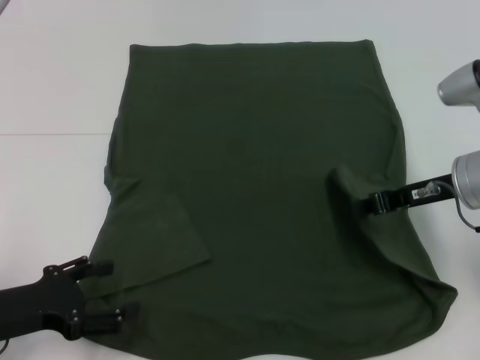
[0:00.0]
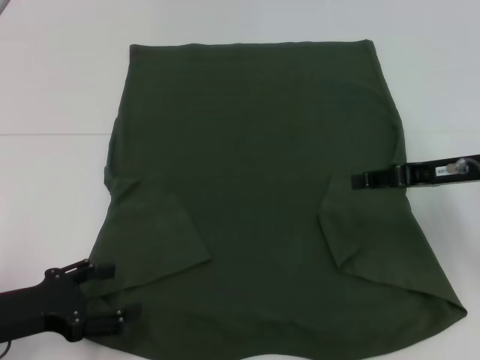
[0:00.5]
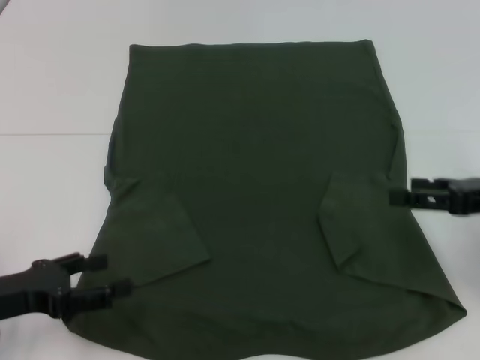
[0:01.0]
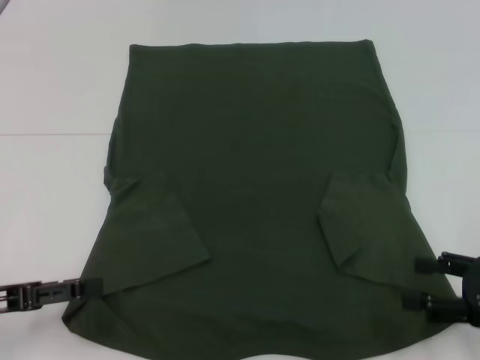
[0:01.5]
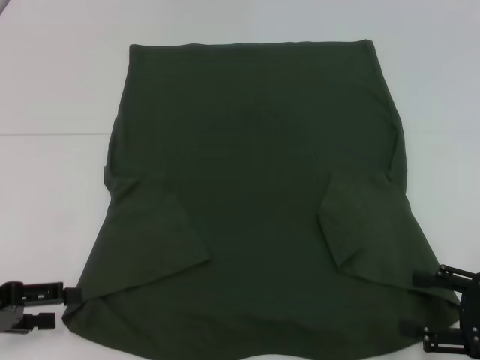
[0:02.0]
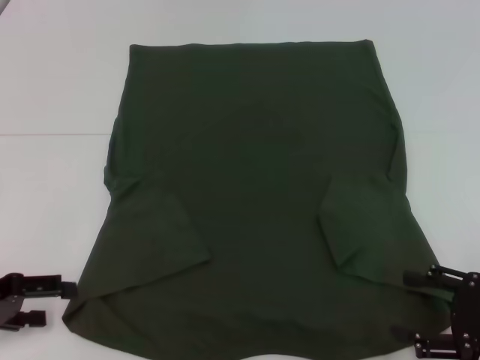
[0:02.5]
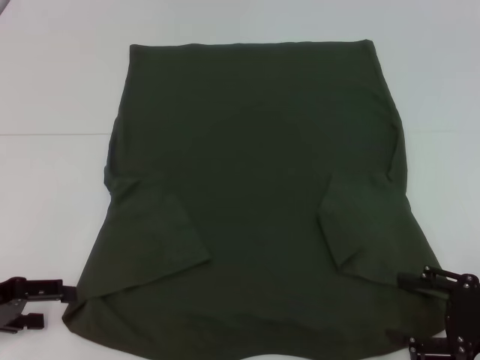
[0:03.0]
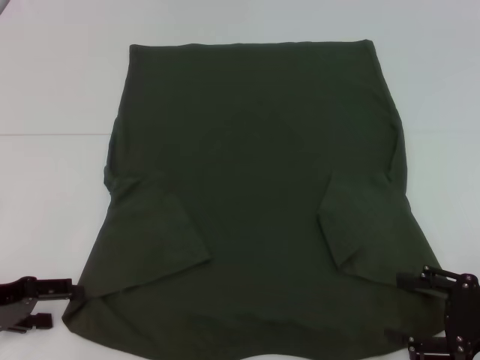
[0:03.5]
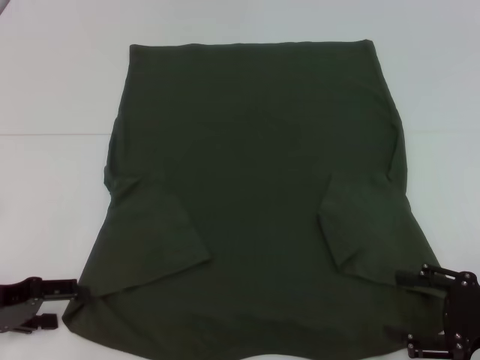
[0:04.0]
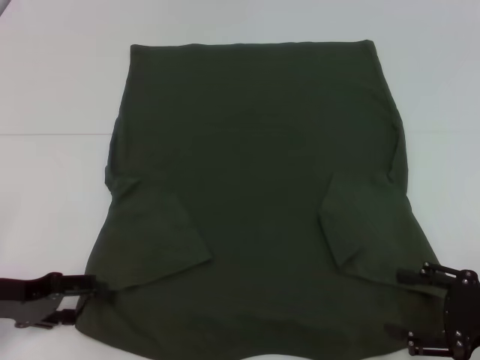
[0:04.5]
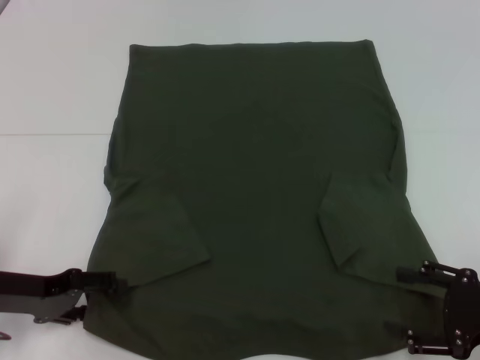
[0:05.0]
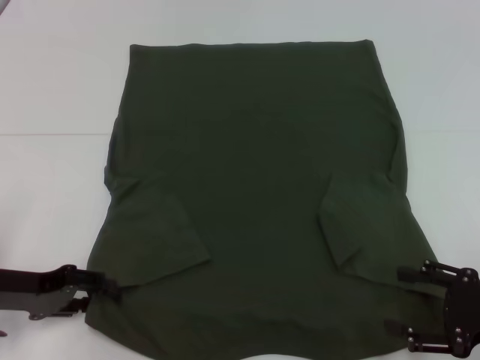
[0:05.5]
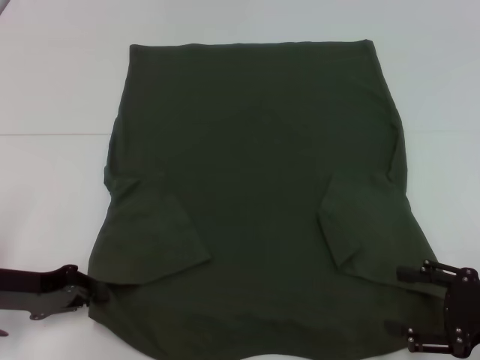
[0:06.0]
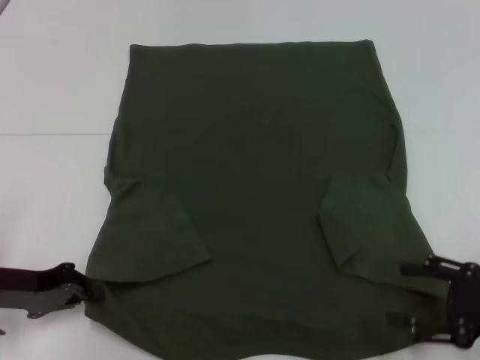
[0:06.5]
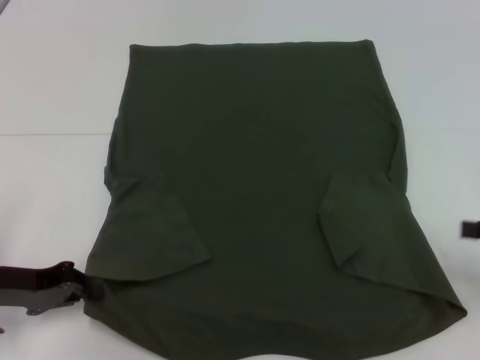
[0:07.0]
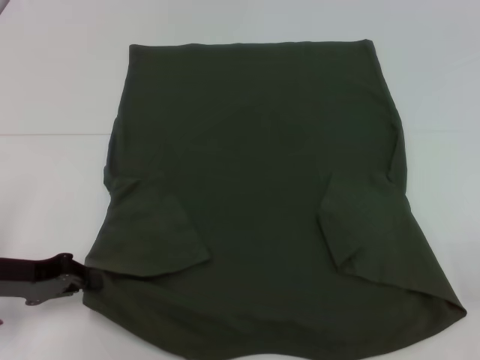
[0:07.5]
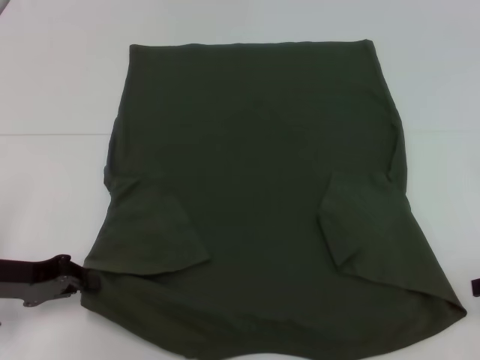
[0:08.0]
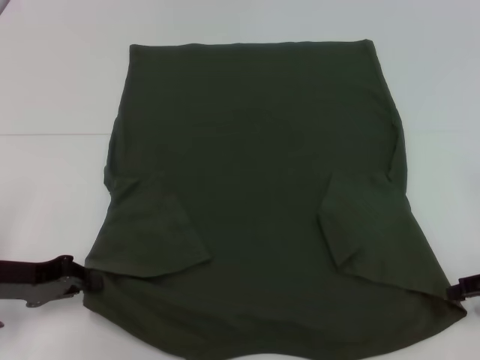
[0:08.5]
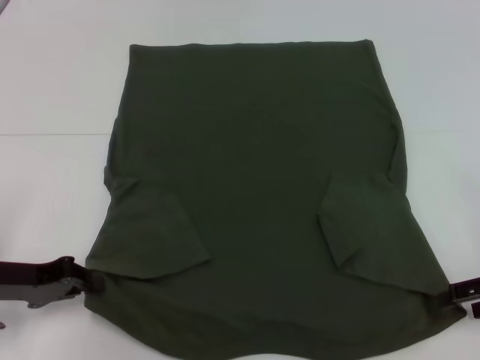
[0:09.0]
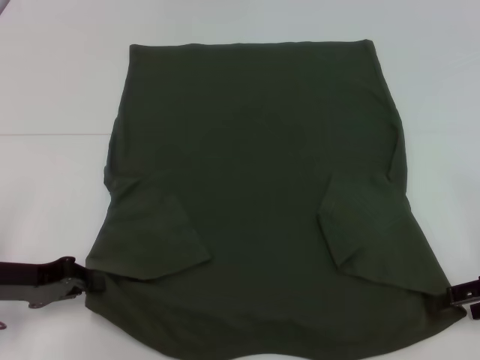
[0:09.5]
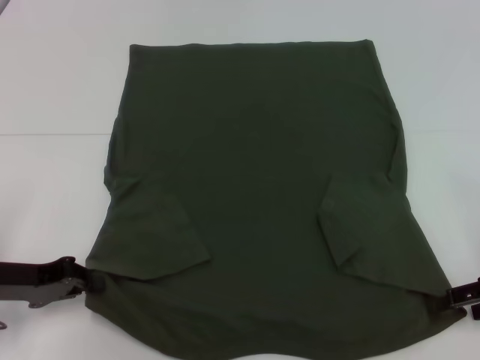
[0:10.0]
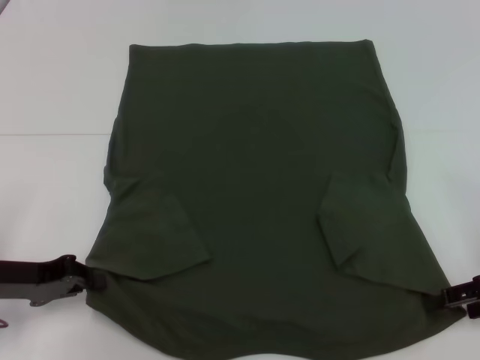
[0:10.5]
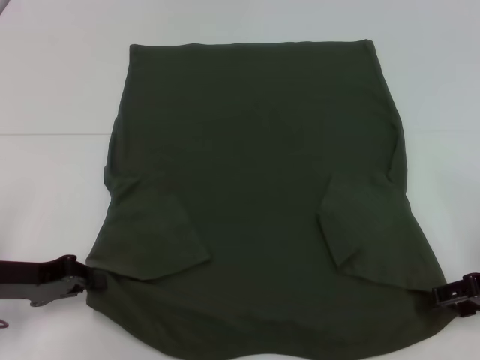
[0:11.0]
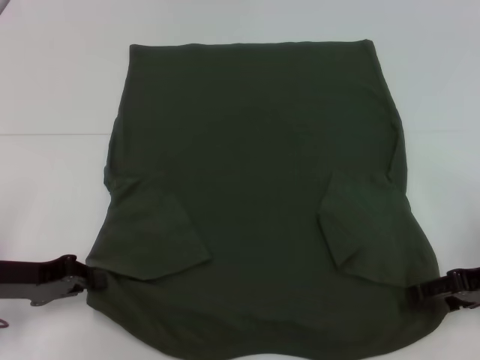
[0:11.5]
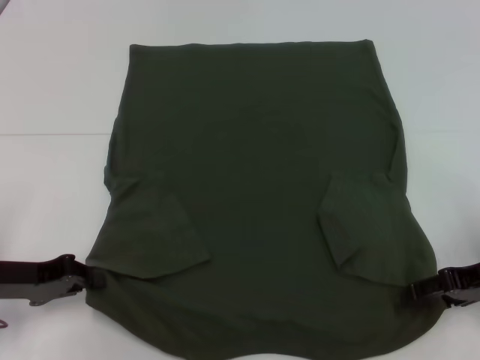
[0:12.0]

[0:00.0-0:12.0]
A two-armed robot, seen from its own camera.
Step, 0:00.5 to 0:05.5: Grab the top right corner with your right hand.
0:00.0 to 0:02.0: The right gripper goes some 20 cm backward, to the right and downward, and opens. Meanwhile the left gripper moves to the left, about 5 cm.
0:02.0 to 0:04.0: The grippers make only small movements.
0:04.0 to 0:06.0: The left gripper closes.
0:06.0 to 0:08.0: The right gripper shifts some 10 cm to the right, forward and upward.
0:08.0 to 0:10.0: There are only small adjustments of the grippers.
0:10.0 to 0:12.0: The grippers stay close to where they were, moving slightly.

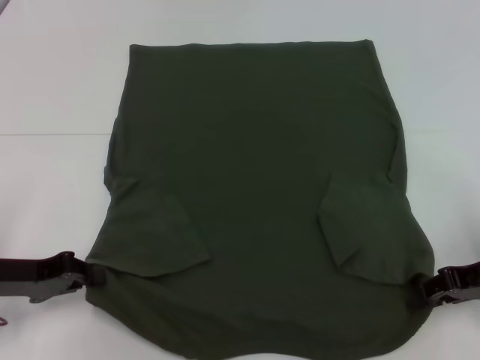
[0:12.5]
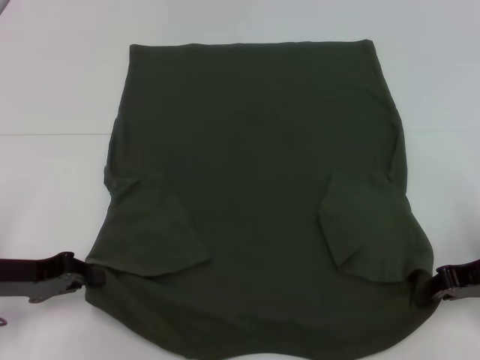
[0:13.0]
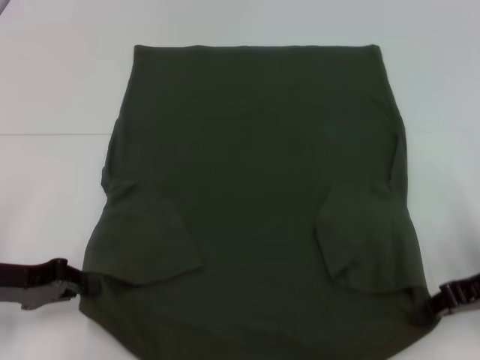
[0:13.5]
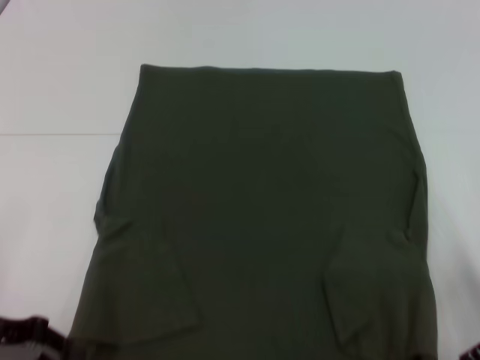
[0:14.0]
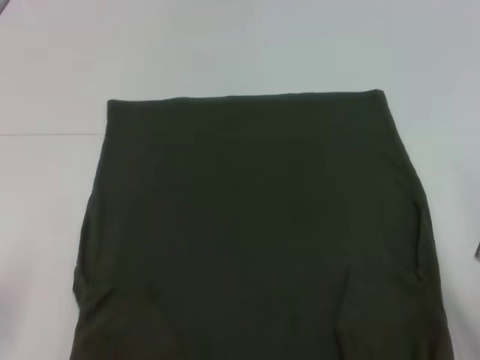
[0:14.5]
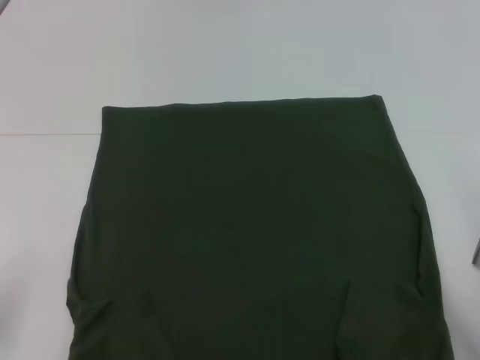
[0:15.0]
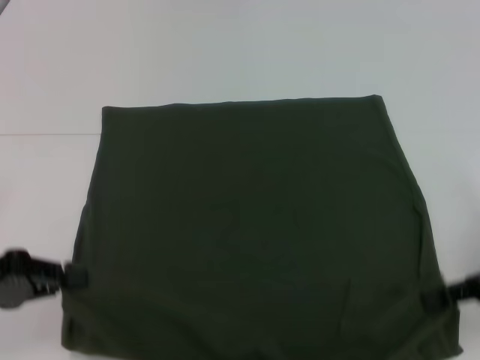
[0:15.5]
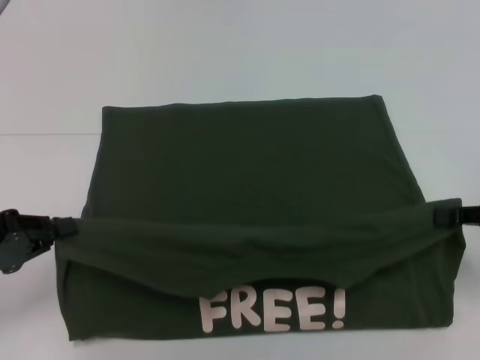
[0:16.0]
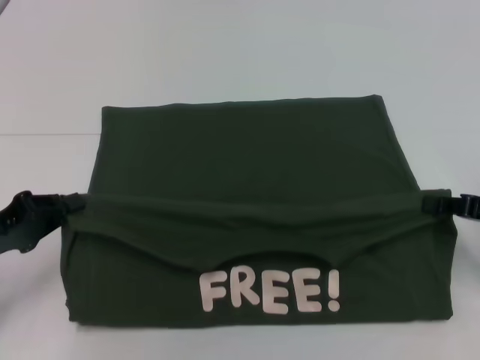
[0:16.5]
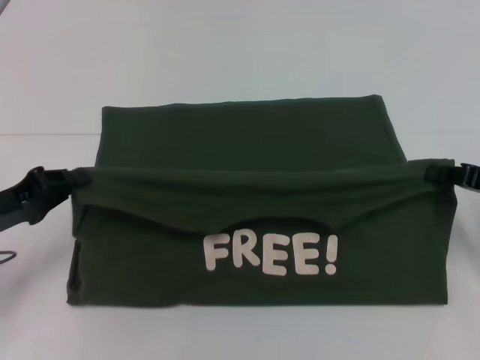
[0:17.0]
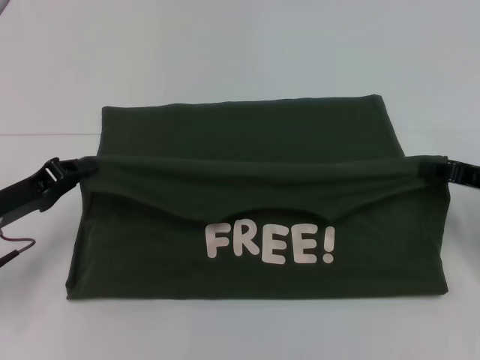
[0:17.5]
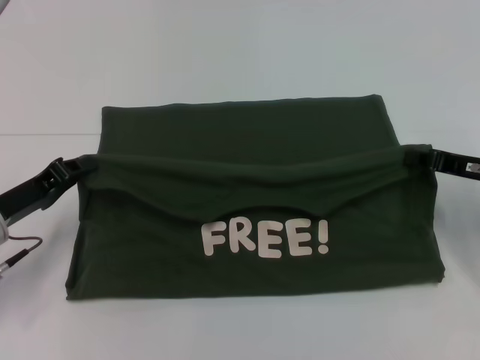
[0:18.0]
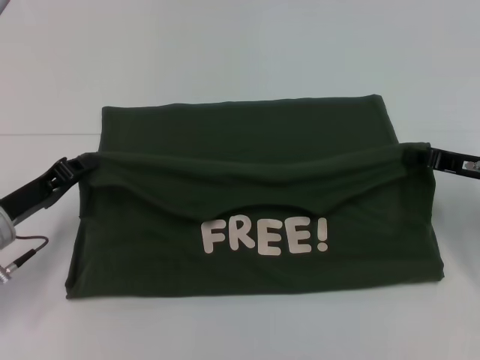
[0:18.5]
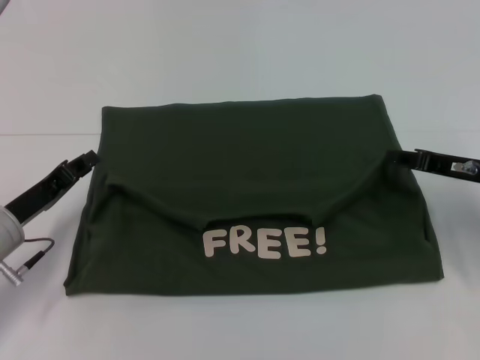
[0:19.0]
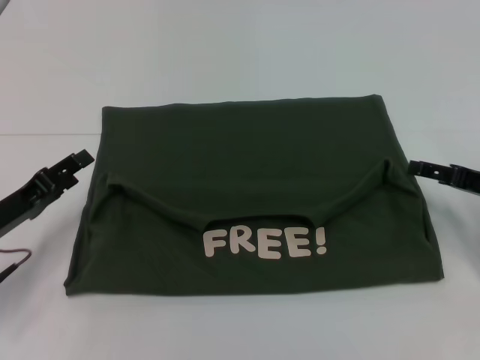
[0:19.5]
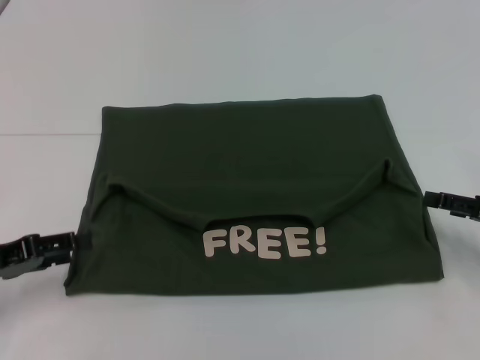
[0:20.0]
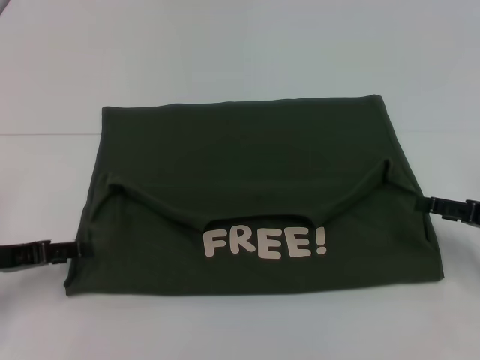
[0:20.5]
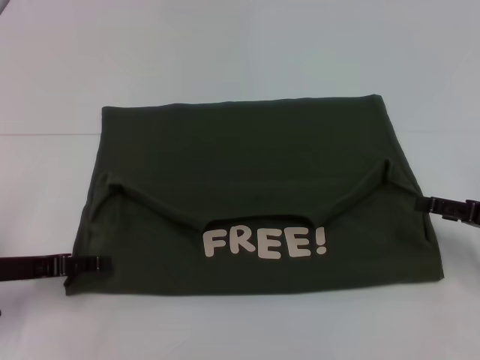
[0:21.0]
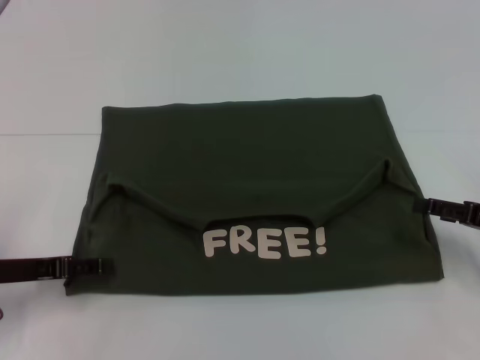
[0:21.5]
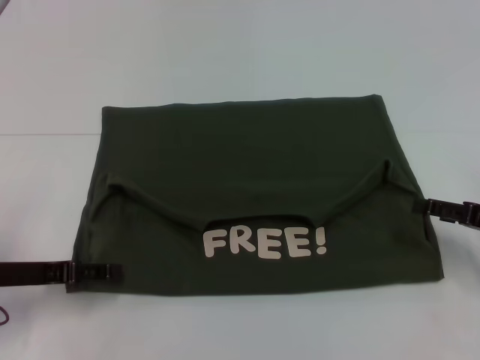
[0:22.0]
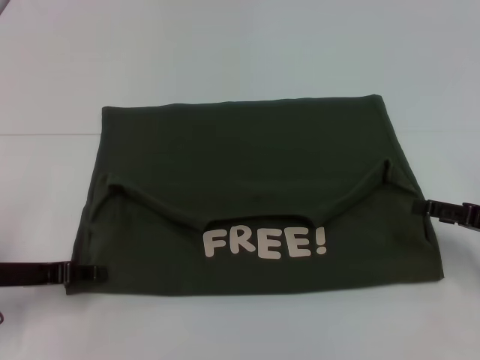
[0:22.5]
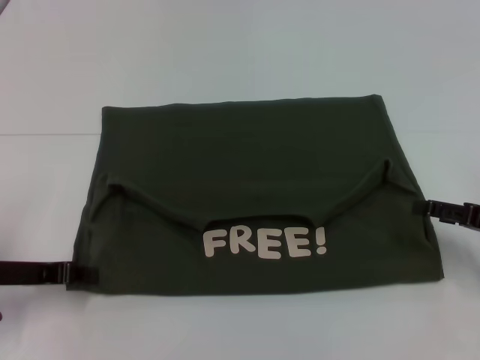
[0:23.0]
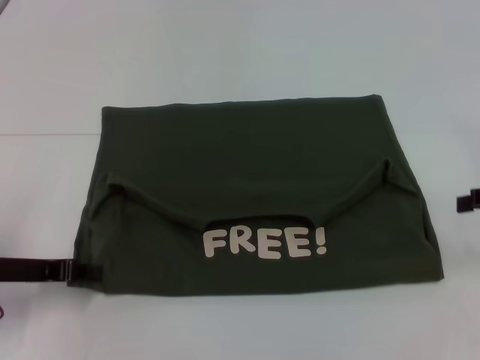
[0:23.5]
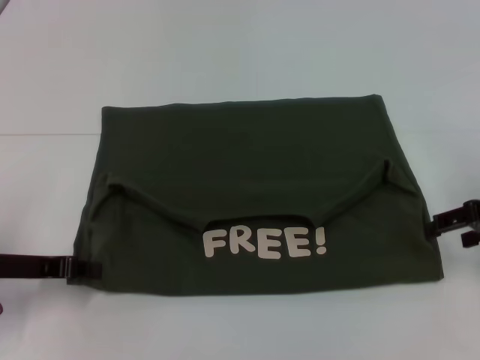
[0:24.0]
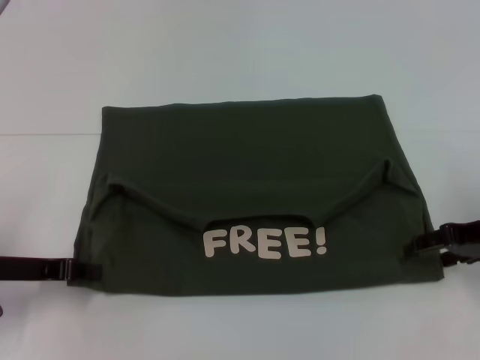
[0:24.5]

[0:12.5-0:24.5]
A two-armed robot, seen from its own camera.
Step, 0:13.0 to 0:19.0: Fold the clothes with your left hand.
Step, 0:13.0 to 0:19.0: Fold the clothes with your right hand.
0:12.5 to 0:14.5: Both grippers travel together backward, roughly 5 cm. The right gripper closes.
0:14.5 to 0:16.5: The left gripper changes place by approximately 5 cm. Meanwhile the right gripper shifts roughly 10 cm to the right and forward.
0:16.5 to 0:18.5: The left gripper ends up some 5 cm from where it was. The right gripper moves forward, about 5 cm.
0:18.5 to 0:20.5: The right gripper heads backward, covering some 5 cm, and opens its fingers, while the left gripper changes place by some 5 cm, and opens up.
0:20.5 to 0:22.5: The grippers stay close to where they were, moving slightly.
0:22.5 to 0:24.5: The left gripper closes its fingers, while the right gripper moves about 5 cm.

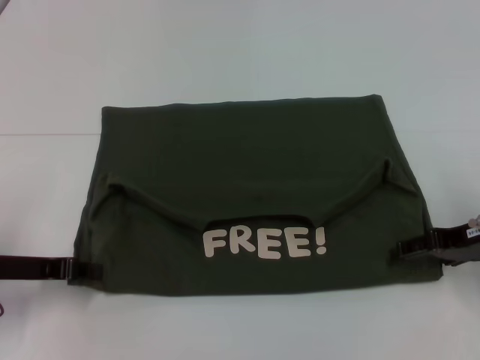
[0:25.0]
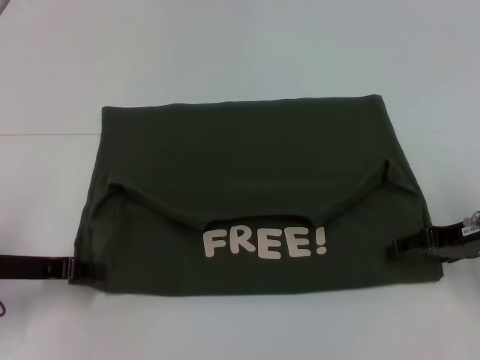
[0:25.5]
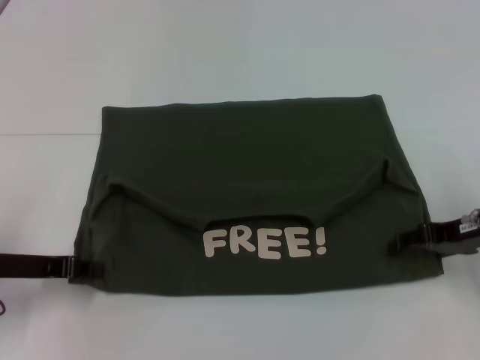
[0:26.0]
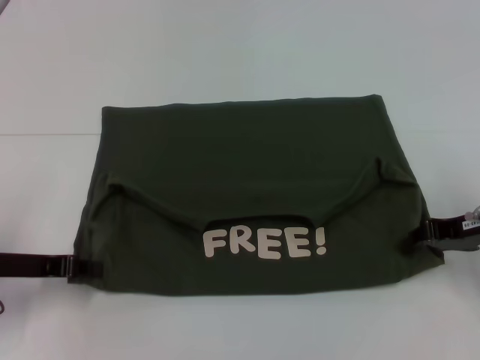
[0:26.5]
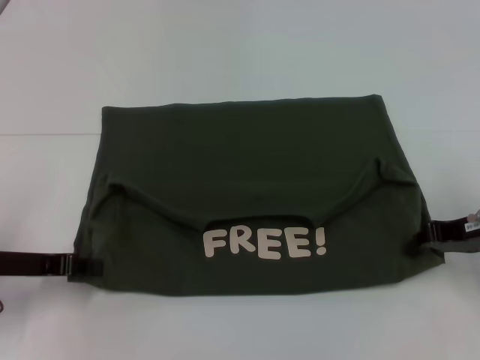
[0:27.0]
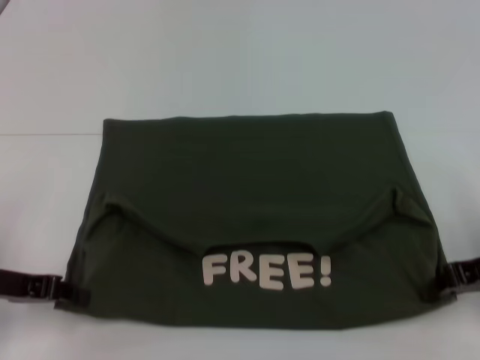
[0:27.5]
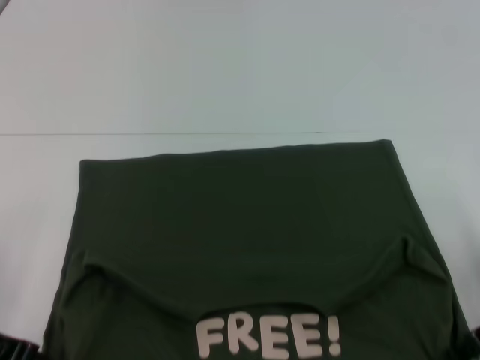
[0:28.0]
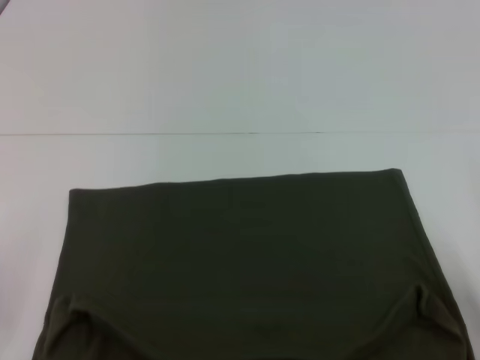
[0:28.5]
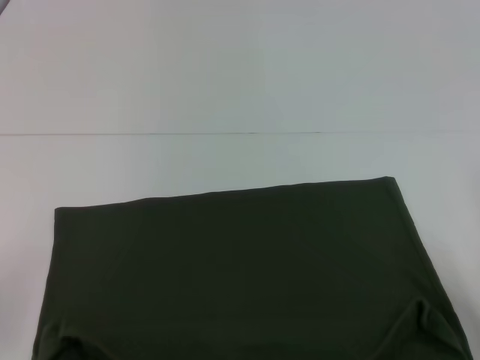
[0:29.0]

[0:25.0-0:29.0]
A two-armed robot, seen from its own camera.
Step, 0:25.0 to 0:28.0: Pull the clothes with your left hand.
Step, 0:25.0 to 0:28.0: Pull the clothes with your right hand.
0:25.0 to 0:27.0: The right gripper closes up.
0:27.0 to 0:29.0: Both grippers move backward, roughly 10 cm.
